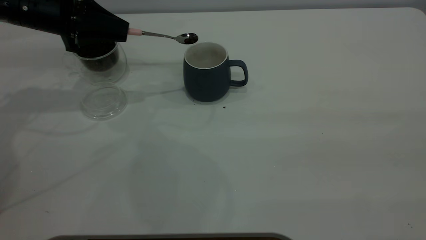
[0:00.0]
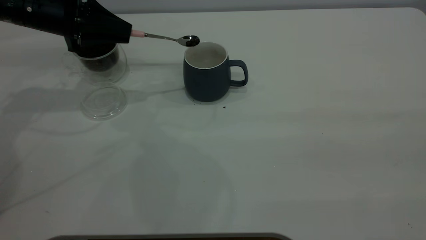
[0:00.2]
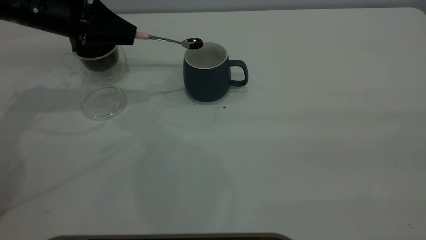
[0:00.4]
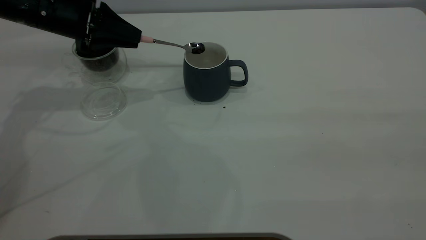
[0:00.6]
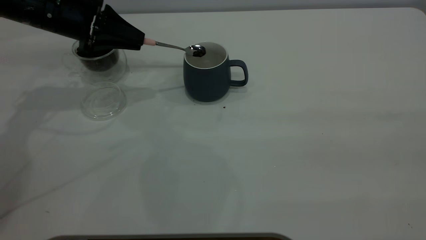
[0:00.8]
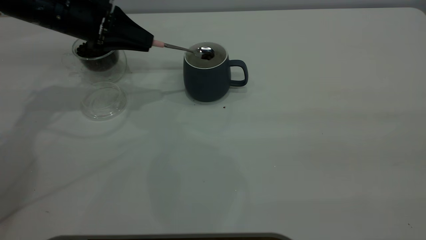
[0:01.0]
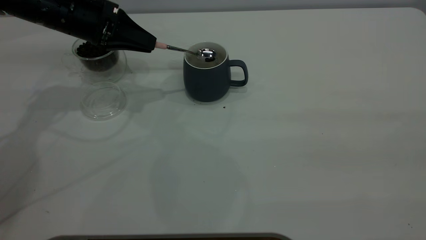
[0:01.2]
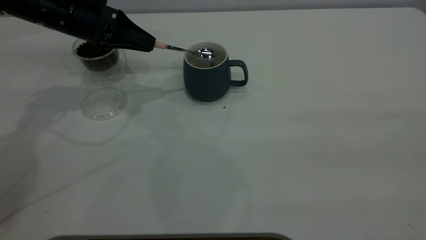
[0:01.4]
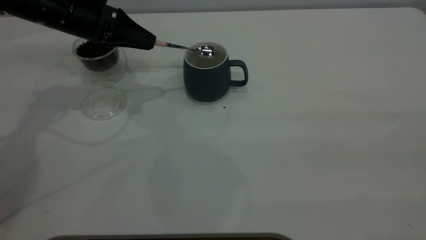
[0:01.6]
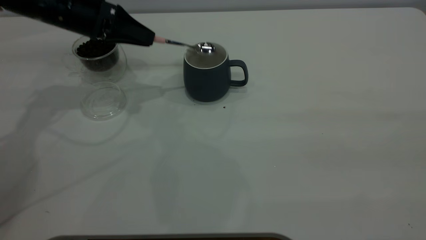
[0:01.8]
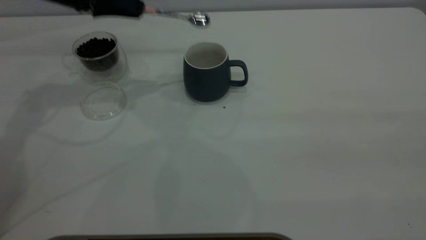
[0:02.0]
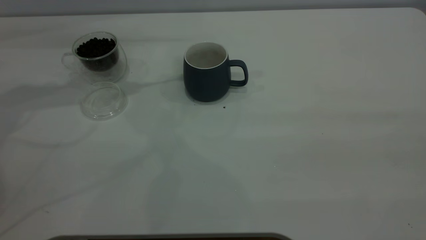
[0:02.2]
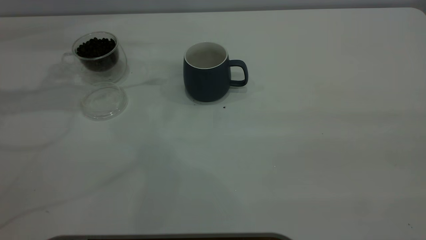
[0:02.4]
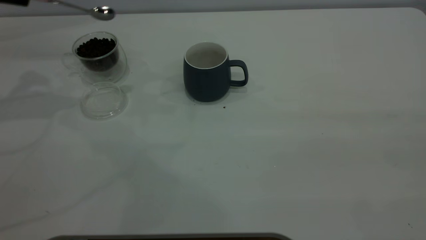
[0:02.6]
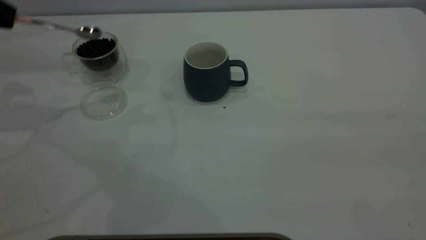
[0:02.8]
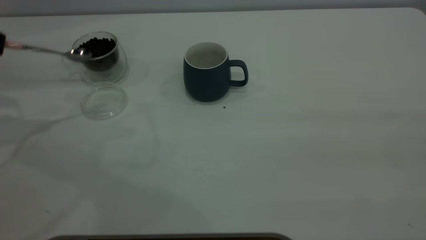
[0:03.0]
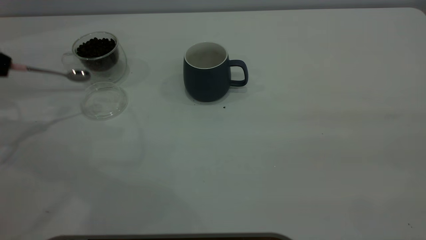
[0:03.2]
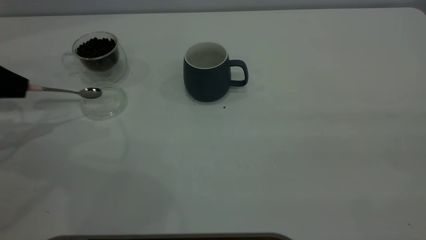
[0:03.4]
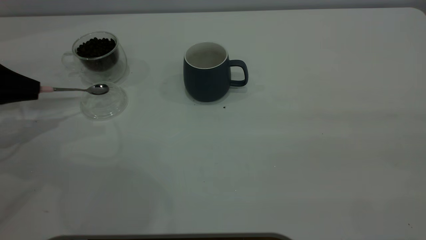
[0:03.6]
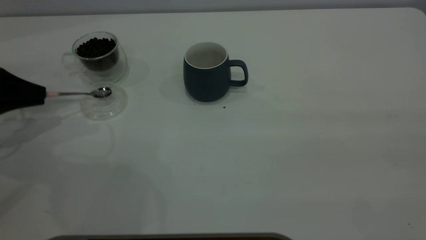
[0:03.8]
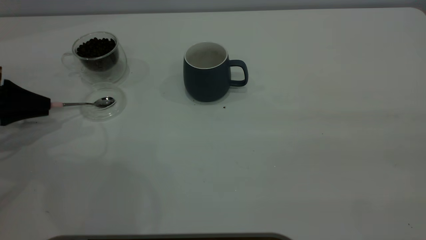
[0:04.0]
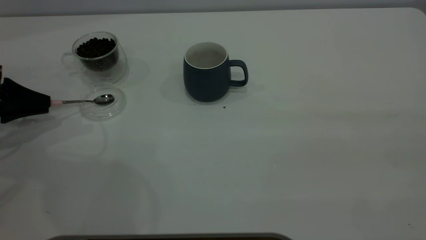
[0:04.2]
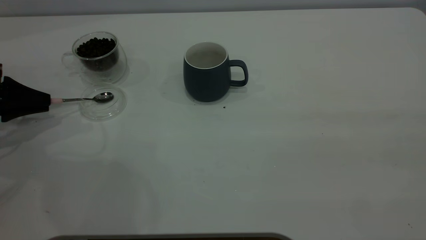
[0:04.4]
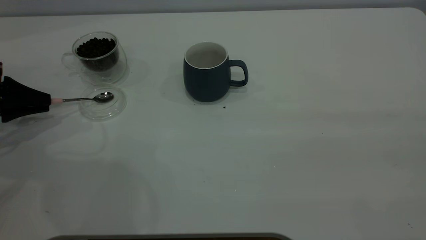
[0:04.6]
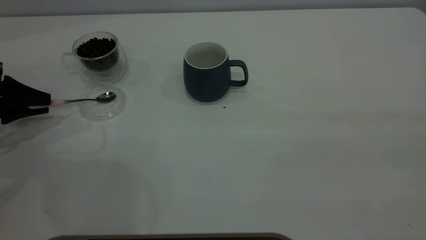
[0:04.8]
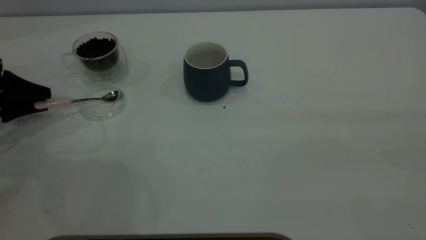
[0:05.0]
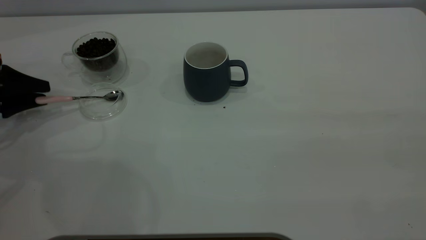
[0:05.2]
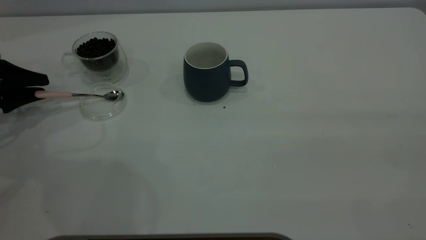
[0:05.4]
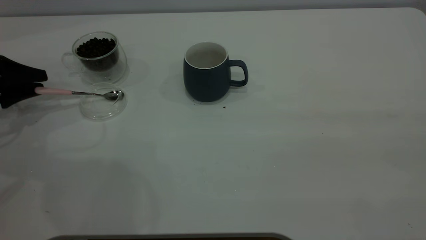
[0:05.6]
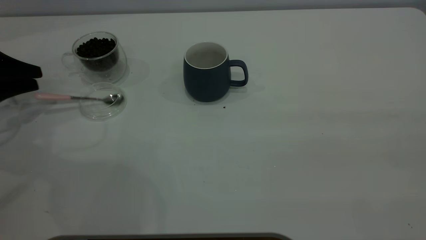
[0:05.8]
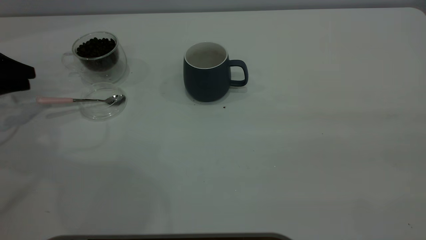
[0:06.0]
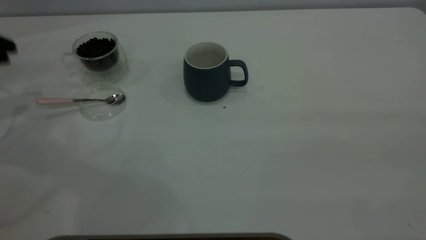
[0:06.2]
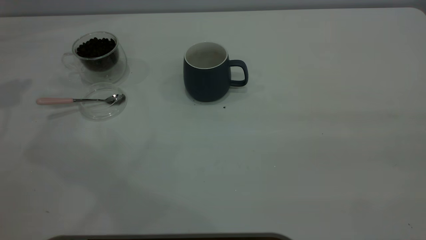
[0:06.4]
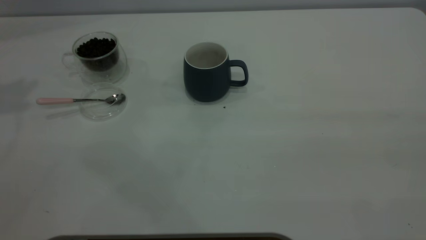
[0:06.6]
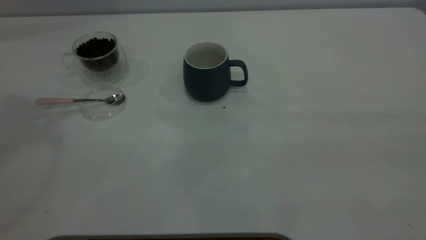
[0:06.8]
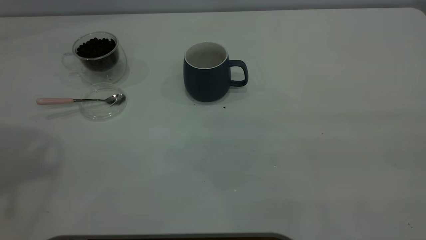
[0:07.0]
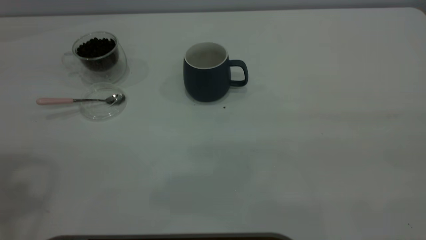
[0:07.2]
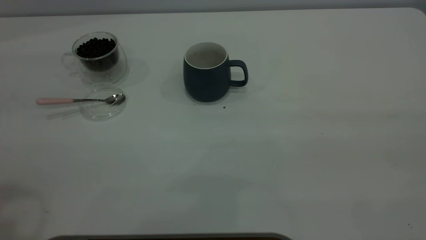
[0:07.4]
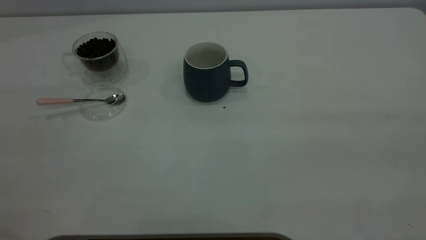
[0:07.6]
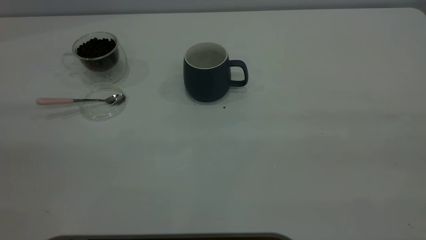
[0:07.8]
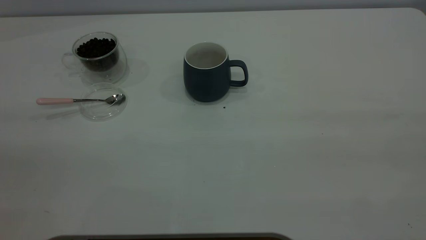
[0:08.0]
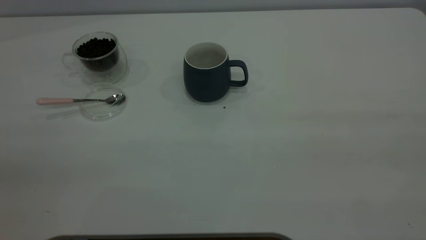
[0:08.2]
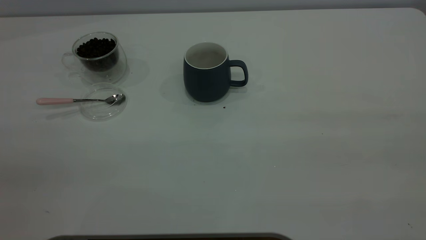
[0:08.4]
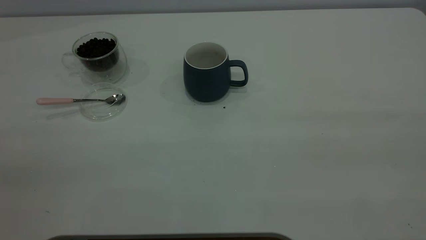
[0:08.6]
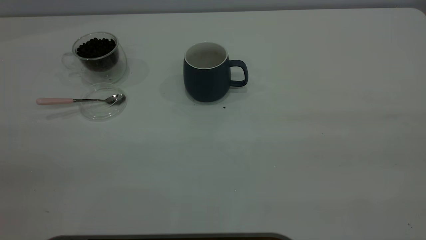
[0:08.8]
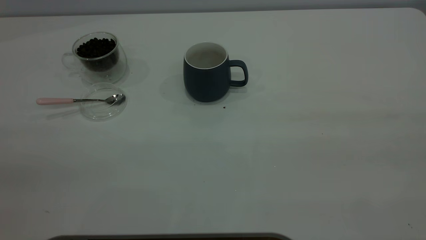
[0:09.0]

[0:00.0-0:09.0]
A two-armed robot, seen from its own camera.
Task of the whole recording: the right gripper place the grey cup in the center of the table, the left gripper take the pink spoon from the cup lid and scoop out the coffee beans from the coffee cup and put them into the grey cup, the left gripper put the spoon back into the cup lid.
Step, 0:02.0 to 0:06.0: Place the spoon back in its original place.
0:01.6 to 0:03.0: The left gripper is displaced to the left and backward by approximately 20 cm.
0:03.0 to 0:04.4: The left gripper goes roughly 15 cm downward.
0:04.4 to 0:06.0: The left gripper ends up some 5 cm from where it was, and opens up.
0:06.0 to 0:07.6: The left gripper travels backward, upward and to the right by approximately 40 cm.

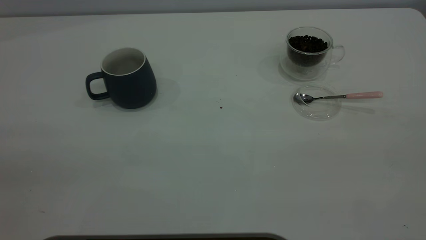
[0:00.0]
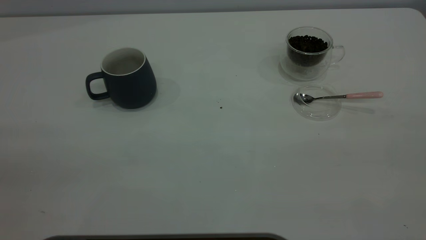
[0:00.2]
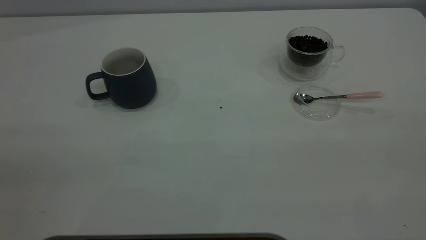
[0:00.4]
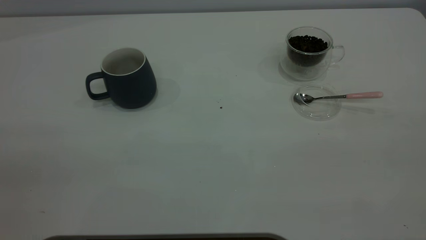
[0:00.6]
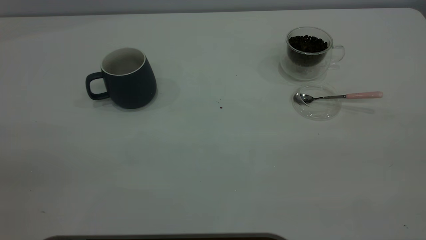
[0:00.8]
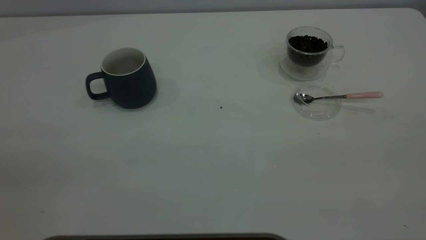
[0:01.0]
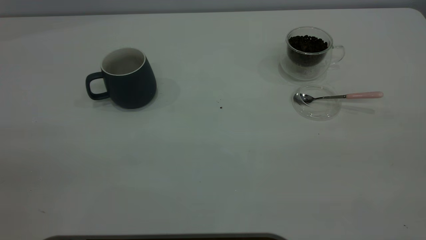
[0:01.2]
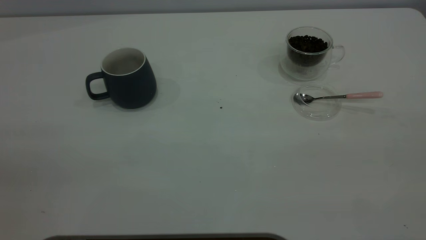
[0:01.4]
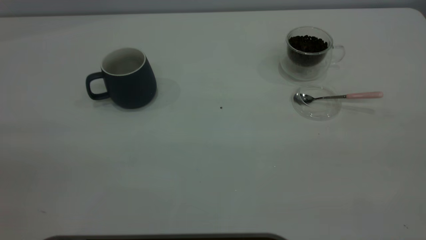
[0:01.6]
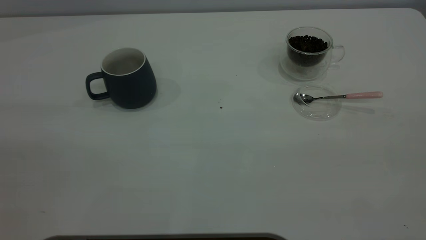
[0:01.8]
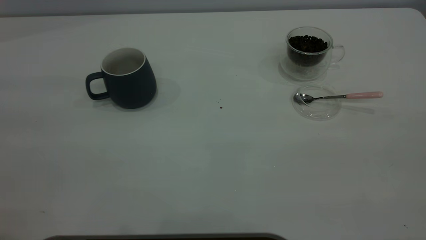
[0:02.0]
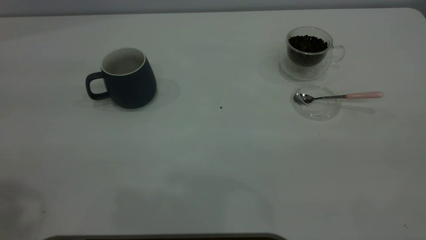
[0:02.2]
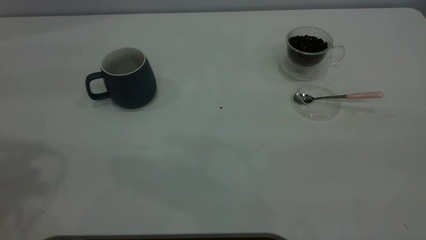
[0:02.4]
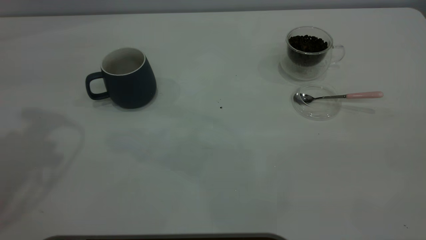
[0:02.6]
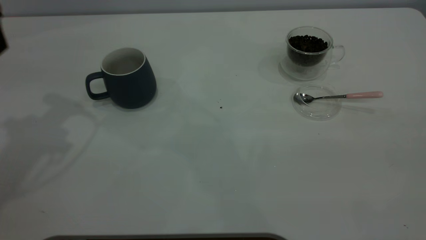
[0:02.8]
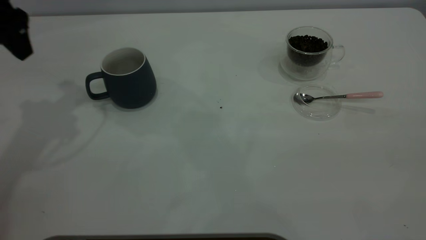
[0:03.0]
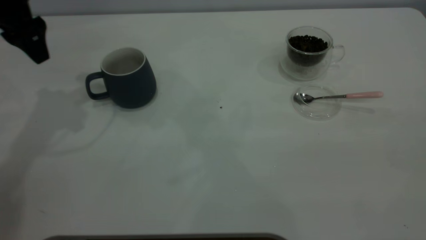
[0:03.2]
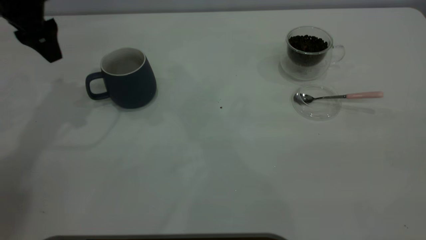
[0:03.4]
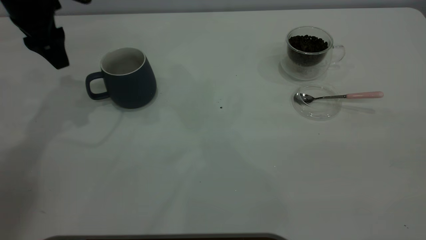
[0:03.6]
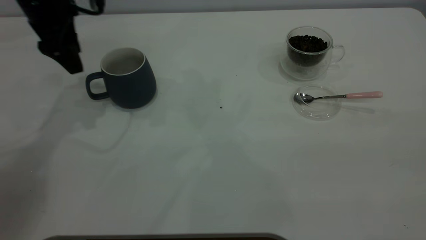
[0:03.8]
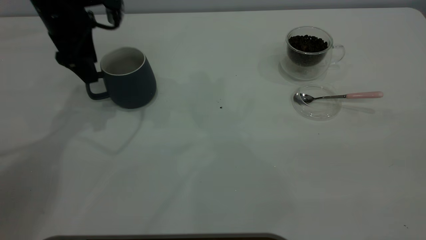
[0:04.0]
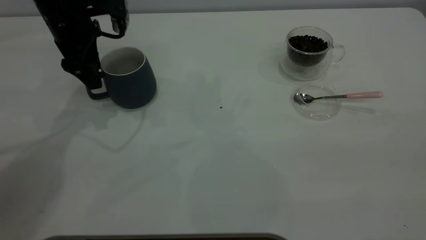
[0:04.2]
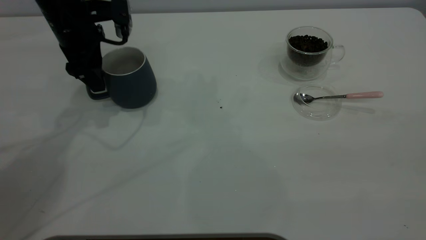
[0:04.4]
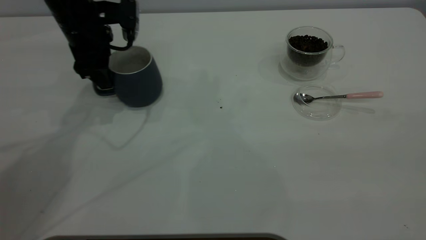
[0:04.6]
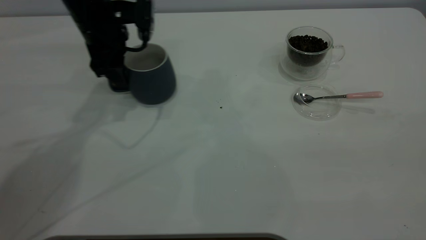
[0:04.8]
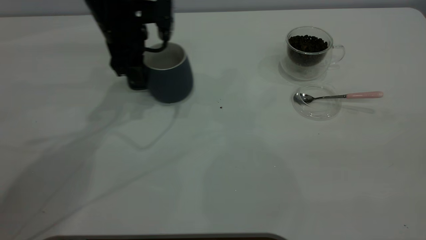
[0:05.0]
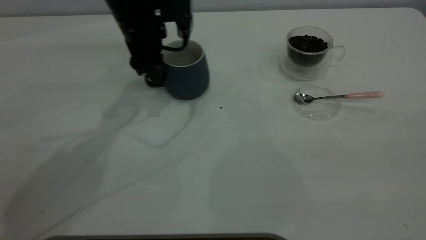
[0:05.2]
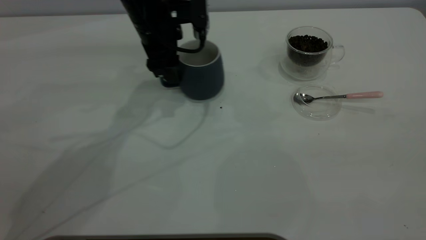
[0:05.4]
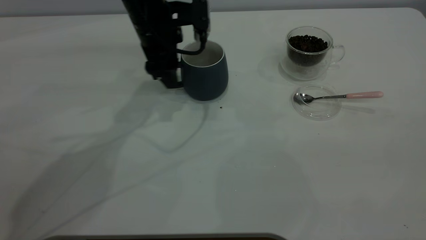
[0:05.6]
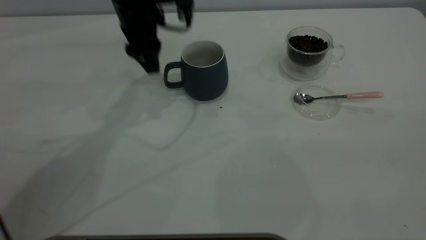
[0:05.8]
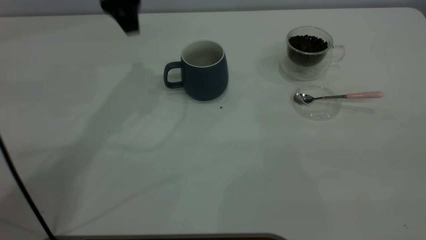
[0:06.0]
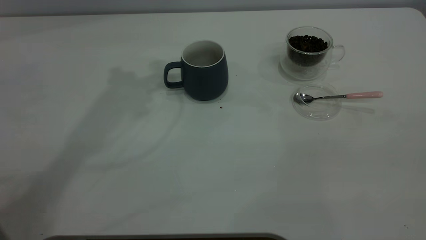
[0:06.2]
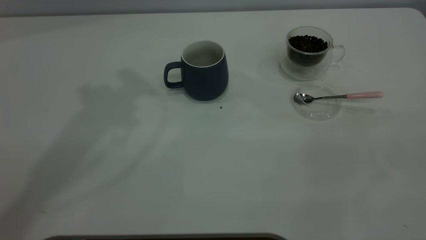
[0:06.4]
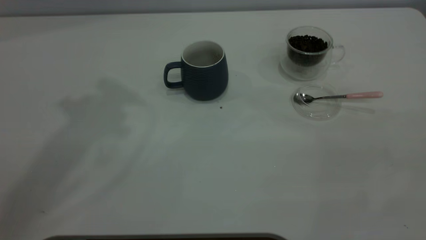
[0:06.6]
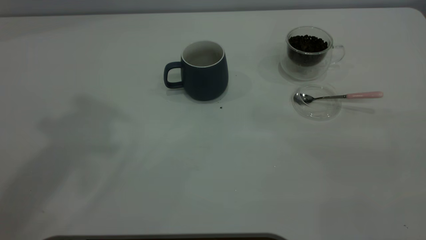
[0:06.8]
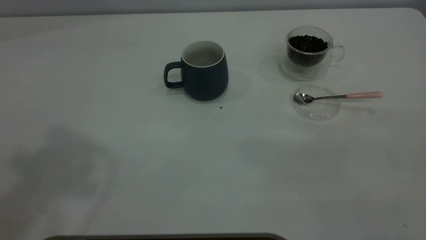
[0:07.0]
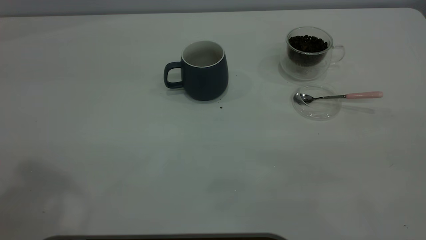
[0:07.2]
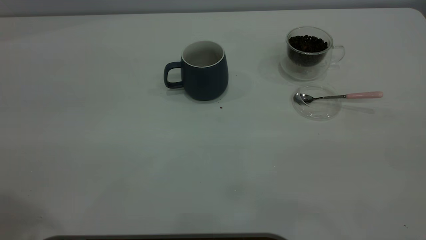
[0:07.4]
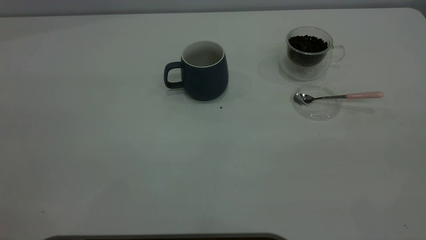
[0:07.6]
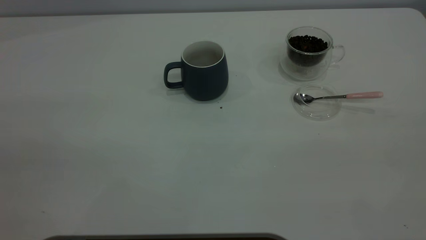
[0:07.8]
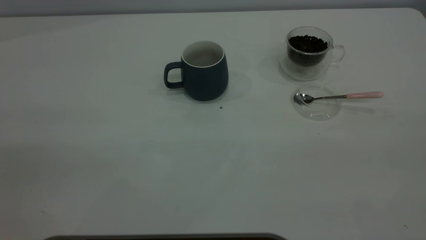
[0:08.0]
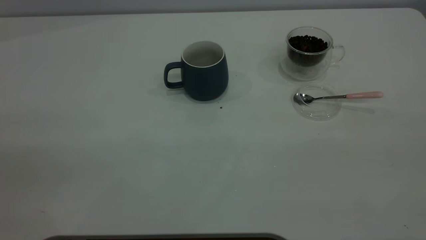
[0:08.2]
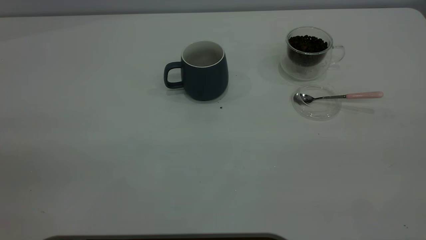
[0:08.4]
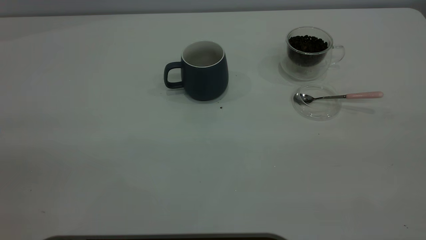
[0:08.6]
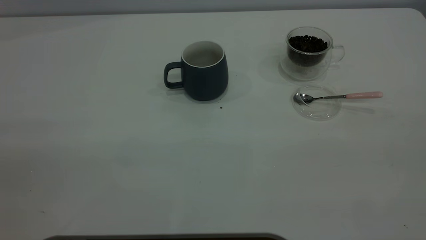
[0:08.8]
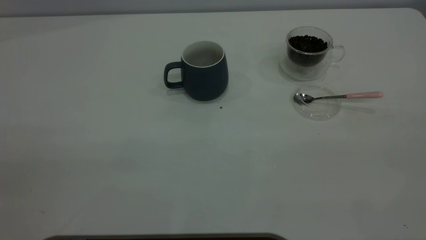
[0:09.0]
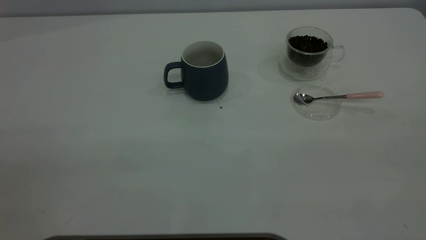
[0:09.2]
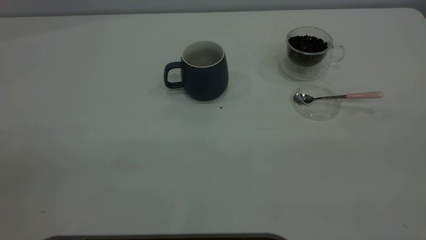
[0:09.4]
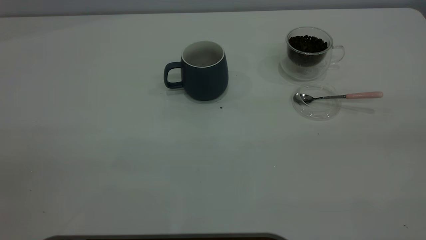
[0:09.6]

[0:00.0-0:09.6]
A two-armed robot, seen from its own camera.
Task of the whole recording: the left gripper place the grey cup in the center of the table, the right gripper take the pink spoon from the cup lid and scoop out the coffee beans from the coffee cup and put them into the grey cup, the right gripper put the spoon back into the cup lid.
Step, 0:00.0 to 0:05.6: Move the cup to the center of view.
0:01.6 to 0:03.2: The left gripper travels forward by roughly 40 cm.
0:03.2 to 0:04.8: The left gripper goes some 15 cm to the right and downward.
0:04.8 to 0:06.4: The left gripper moves upward, roughly 30 cm.
